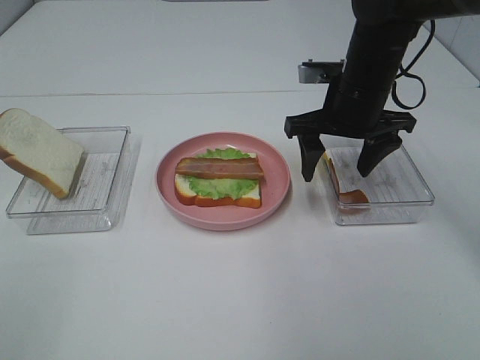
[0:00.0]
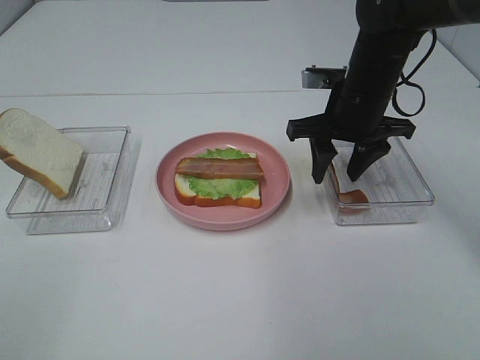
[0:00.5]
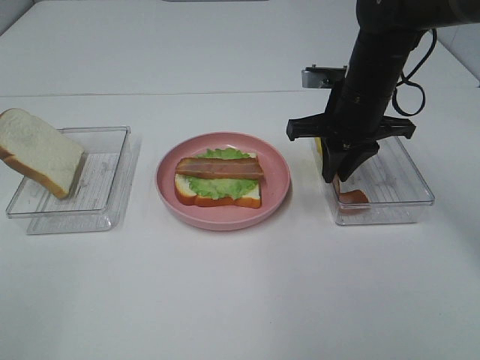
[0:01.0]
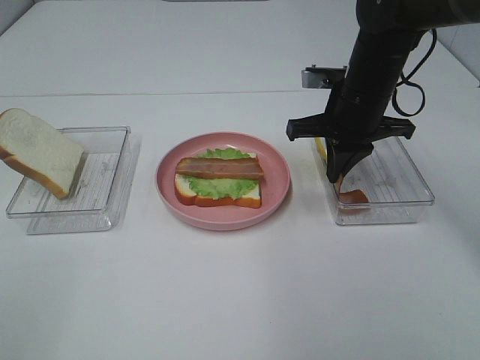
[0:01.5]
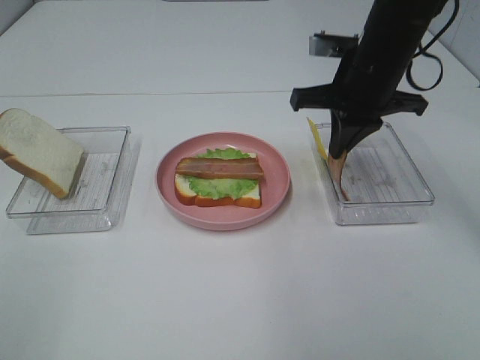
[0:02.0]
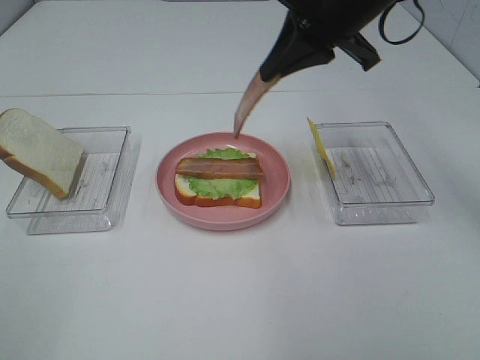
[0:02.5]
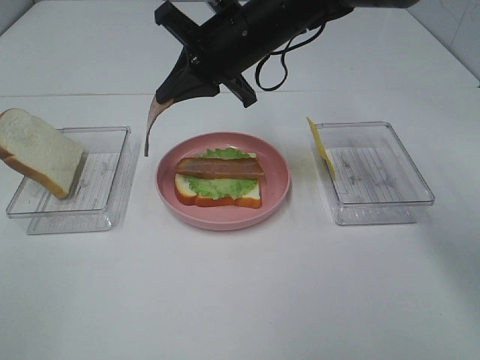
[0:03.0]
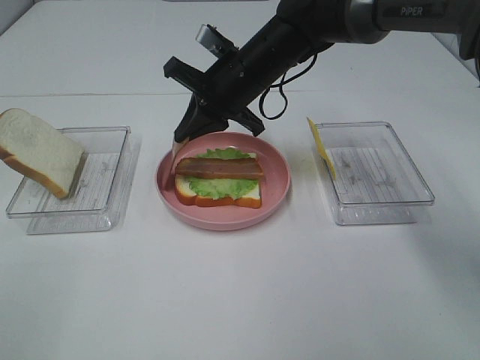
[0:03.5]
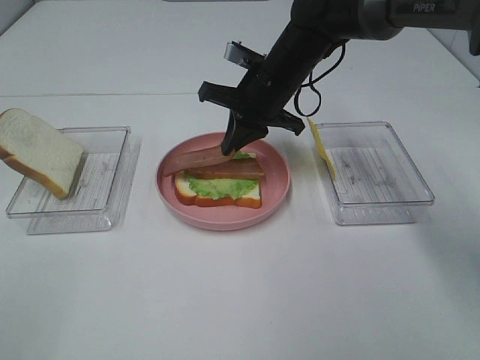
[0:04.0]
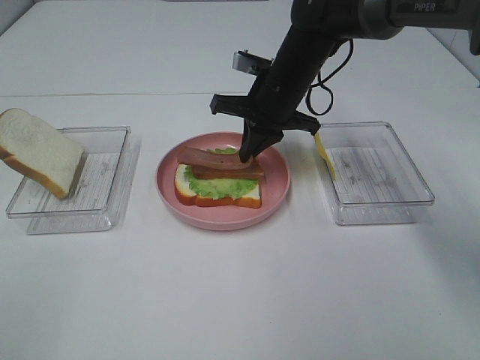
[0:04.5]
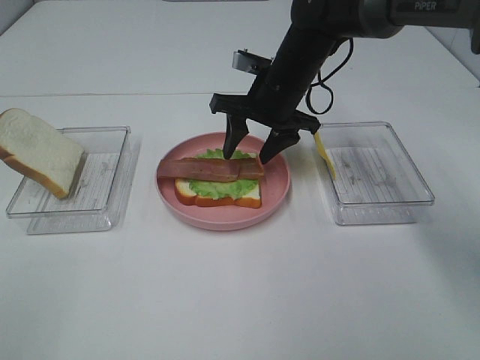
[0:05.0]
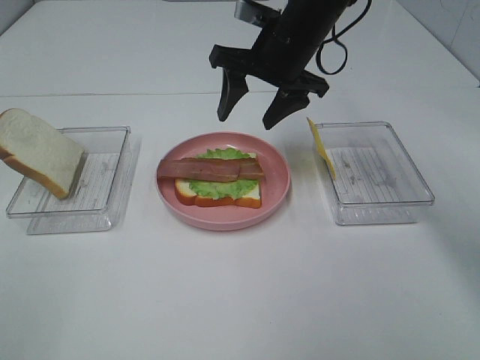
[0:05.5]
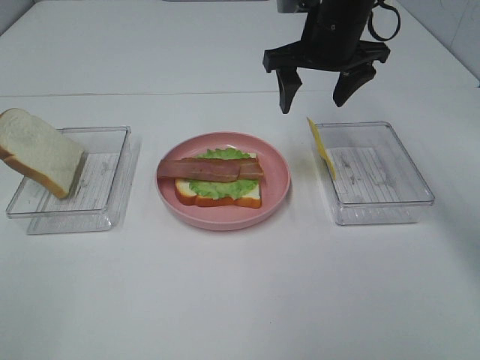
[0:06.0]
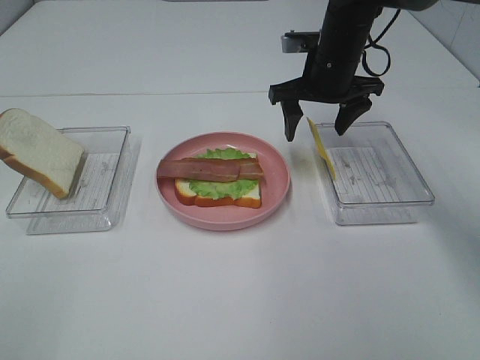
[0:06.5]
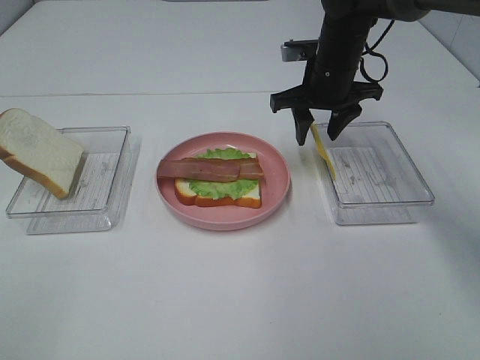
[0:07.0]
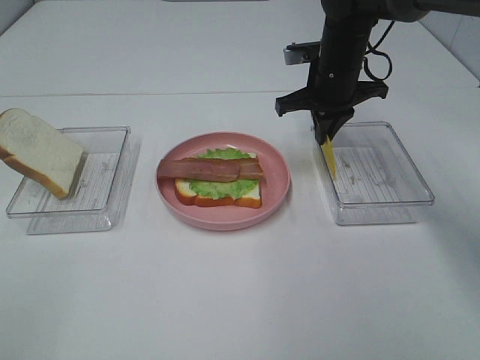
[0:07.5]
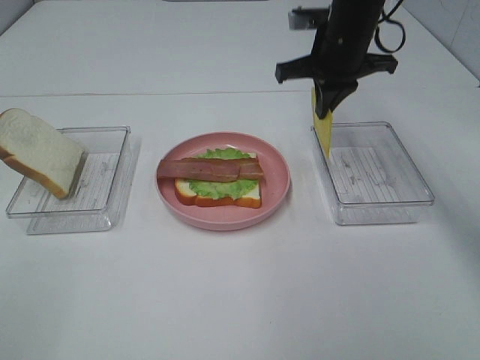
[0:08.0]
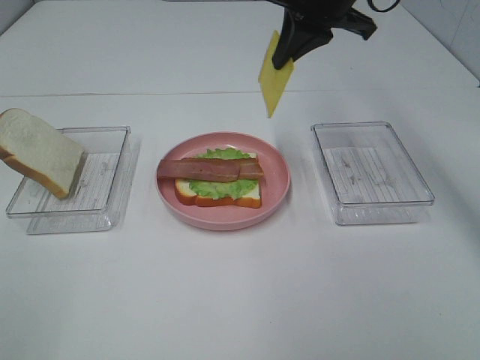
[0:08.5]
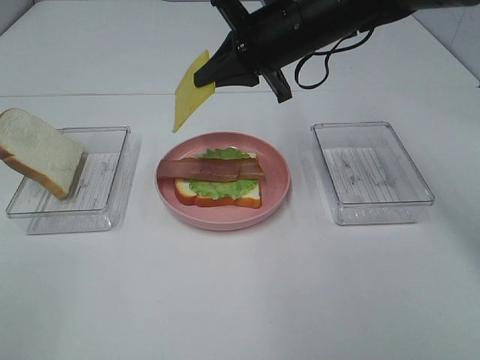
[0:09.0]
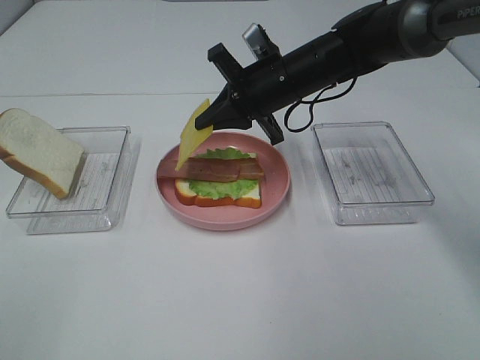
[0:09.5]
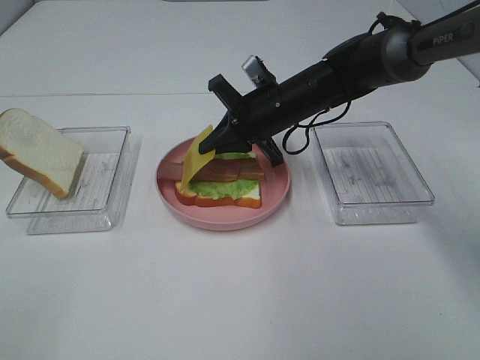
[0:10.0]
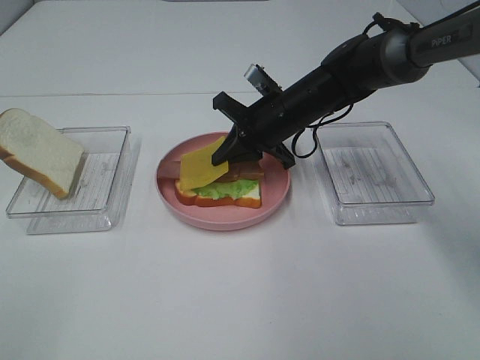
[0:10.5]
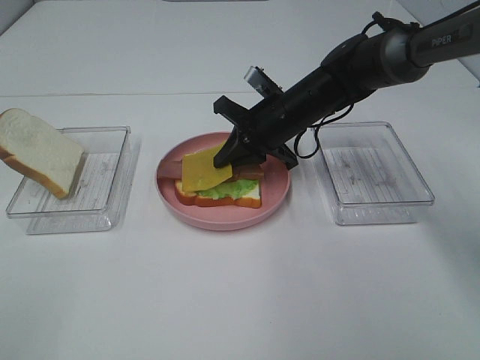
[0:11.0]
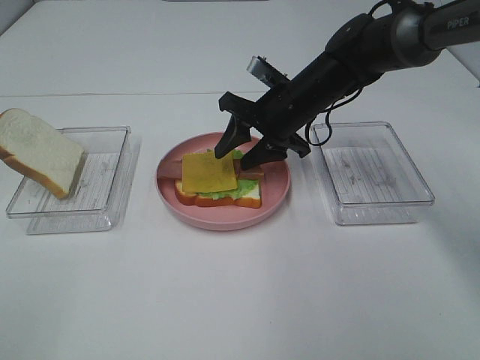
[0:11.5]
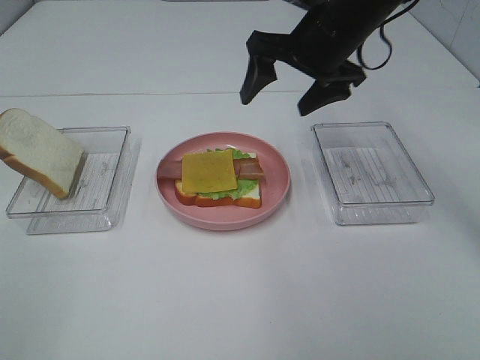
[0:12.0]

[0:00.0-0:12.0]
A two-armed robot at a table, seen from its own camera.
Task of the whole recording: Make sandwiches.
Step, 0:02.0 to 0:05.0: Right hand:place bacon on bacon.
Step, 0:05.5 to 0:07.5: Right hand:grab the cheese slice.
Step, 0:08.0 to 0:11.5: Right hand:place the cheese slice on top of the bacon.
0:00.0 to 0:02.0: The right gripper closes.
0:02.0 to 0:04.0: The right gripper travels to the left, forward and downward by approximately 15 cm.
0:04.0 to 0:06.0: The right gripper is displaced upward and to the right by about 10 cm, and opens.
0:06.0 to 0:08.0: The right gripper closes up.
0:08.0 to 0:10.0: The right gripper travels downward and to the left by approximately 10 cm.
0:10.0 to 0:12.0: The right gripper goes some 15 cm upward, and opens up.

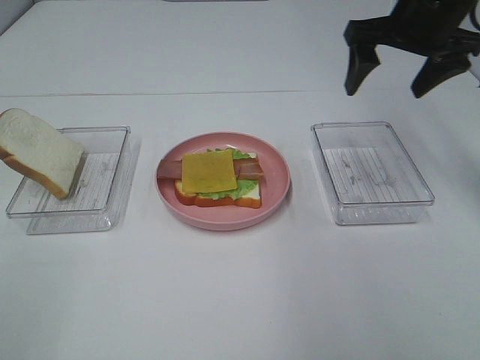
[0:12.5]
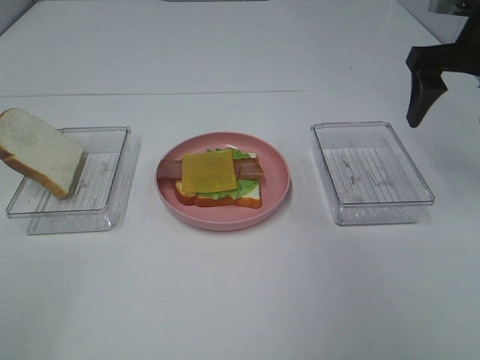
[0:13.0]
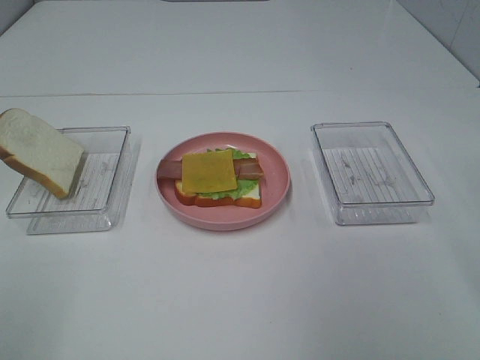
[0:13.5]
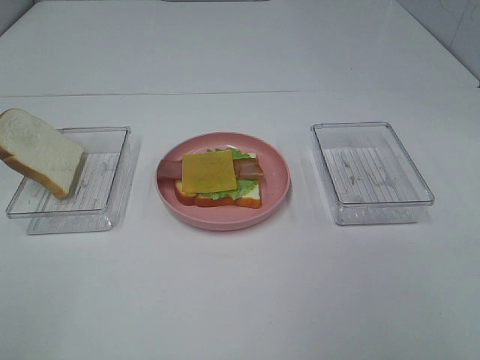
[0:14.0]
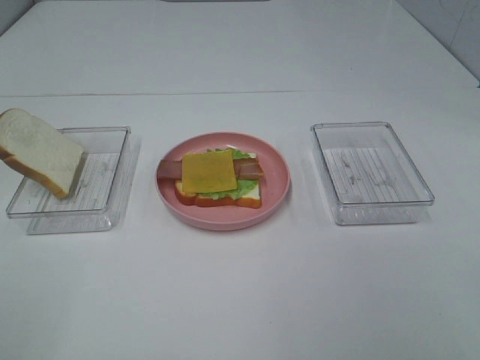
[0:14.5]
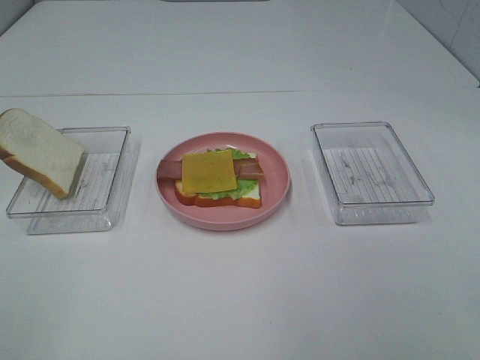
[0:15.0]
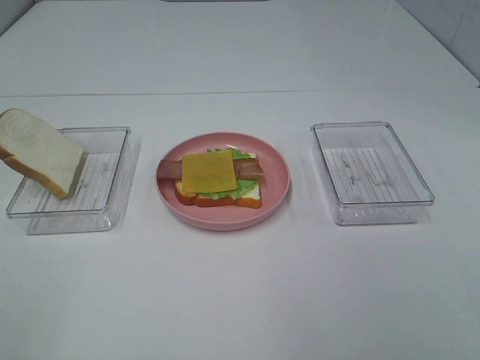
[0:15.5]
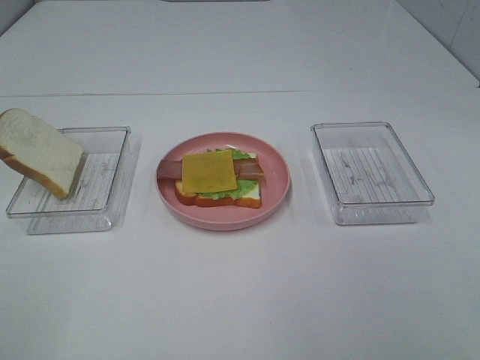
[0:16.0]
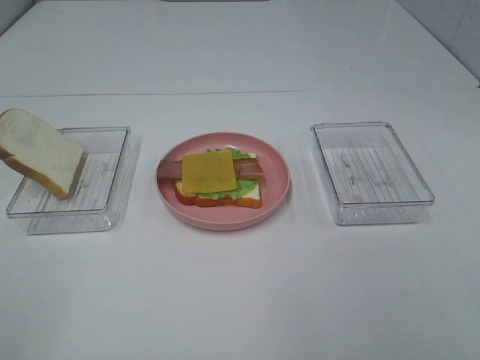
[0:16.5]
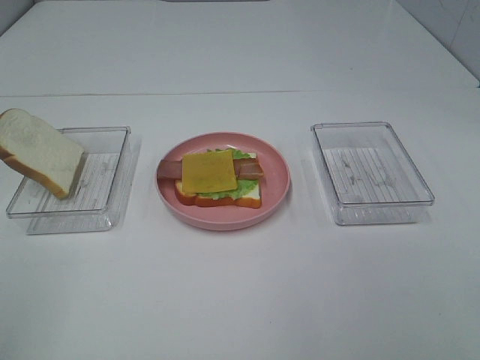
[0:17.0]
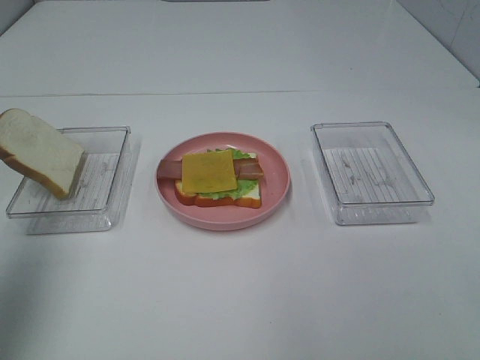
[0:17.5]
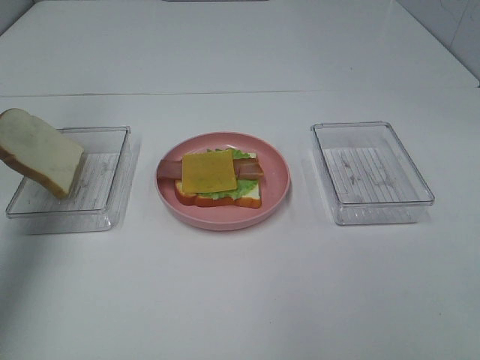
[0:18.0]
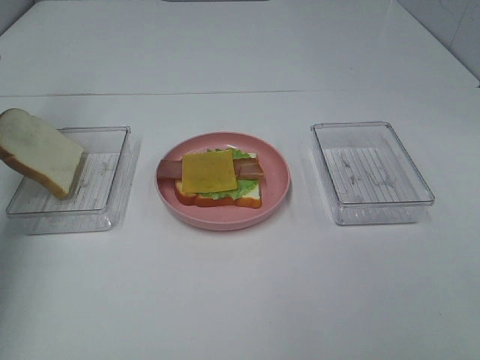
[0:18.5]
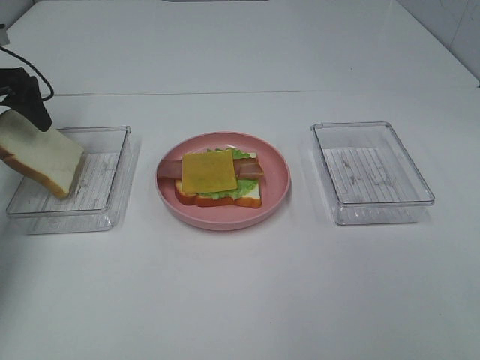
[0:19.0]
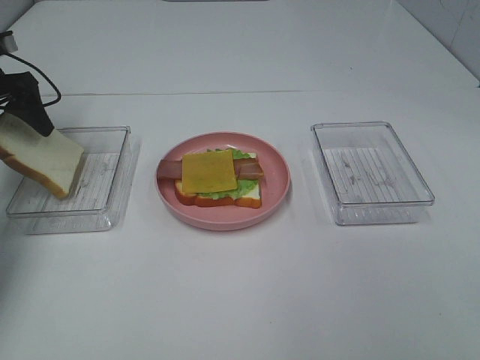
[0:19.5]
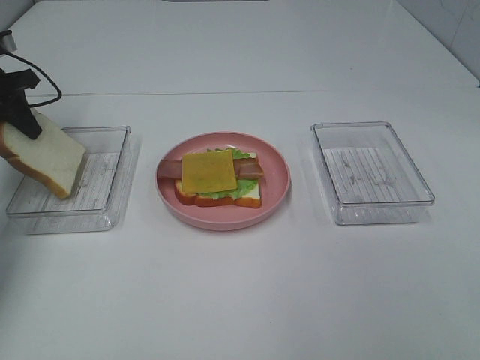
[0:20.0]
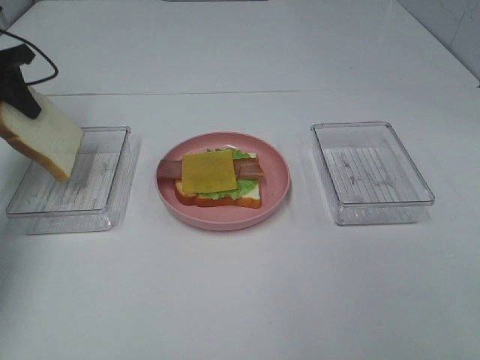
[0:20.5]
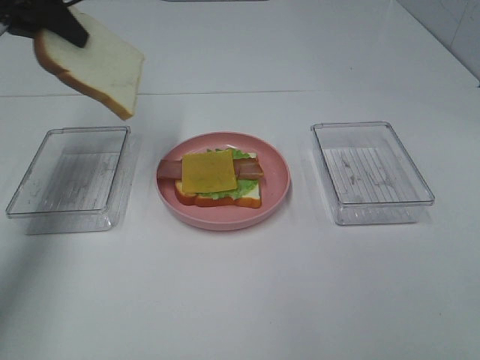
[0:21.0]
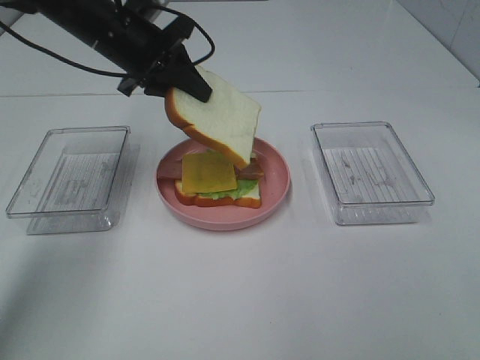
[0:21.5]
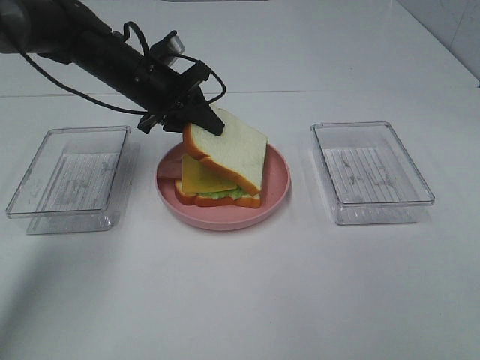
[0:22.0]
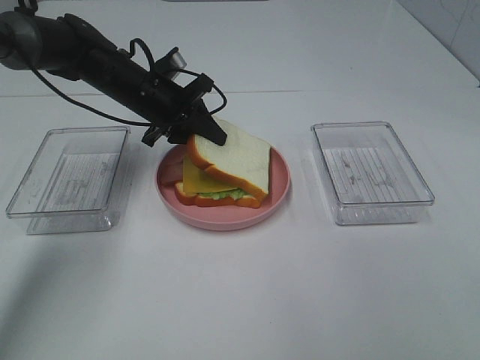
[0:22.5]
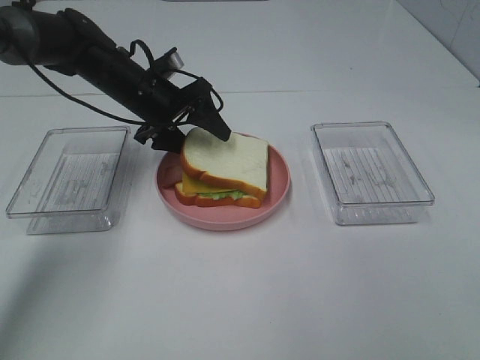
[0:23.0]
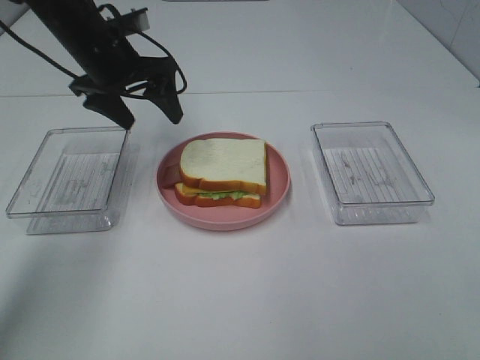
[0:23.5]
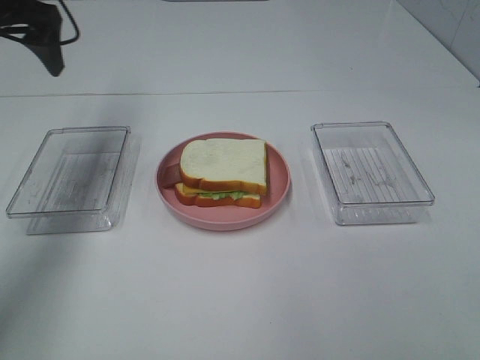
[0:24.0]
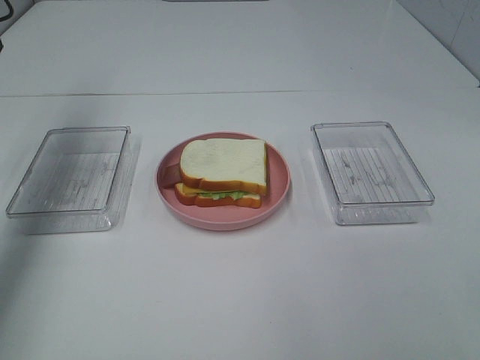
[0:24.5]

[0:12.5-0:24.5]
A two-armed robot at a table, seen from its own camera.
Task of the whole recording: Make sandwiches.
Step, 0:12.5 to 0:20.0: Left hand:grab the bread slice.
Step, 0:20.5 to 0:23.0: Left hand:place the bread slice on the cheese slice.
0:12.5 to 0:14.5: The right gripper heads backward, covering some 40 cm.
0:16.5 to 0:18.5: The left gripper goes roughly 40 cm forward.
0:18.5 to 0:20.5: The left gripper is displaced downward by approximately 5 cm, and closes up.
0:20.5 to 0:22.5: The left gripper travels to the right by some 25 cm.
0:22.5 to 0:24.5: The left gripper moves to the left and upward, roughly 30 cm, and opens its fingers.

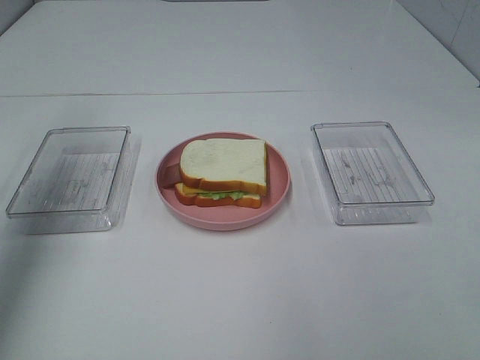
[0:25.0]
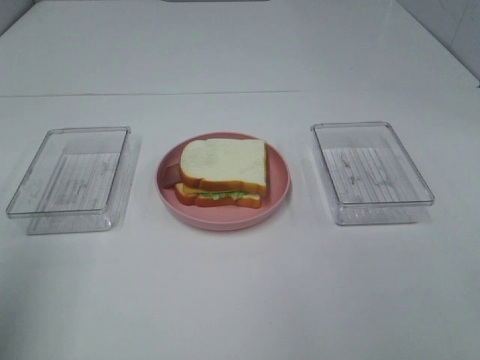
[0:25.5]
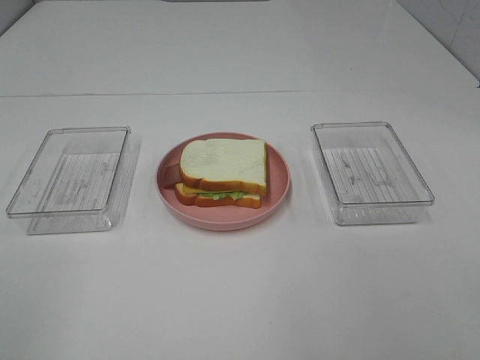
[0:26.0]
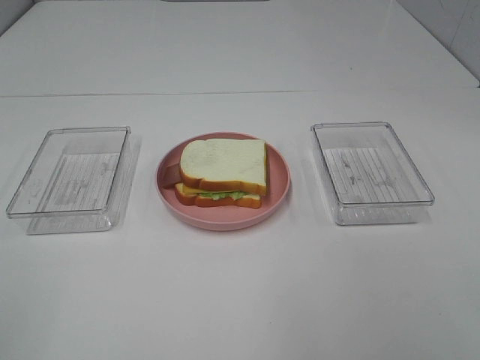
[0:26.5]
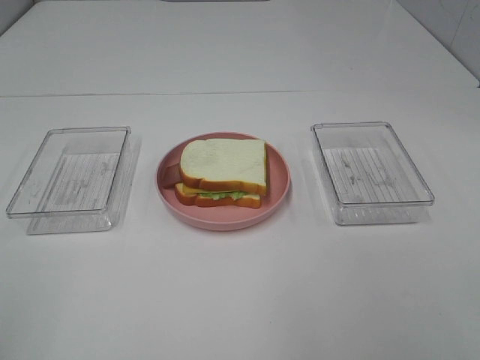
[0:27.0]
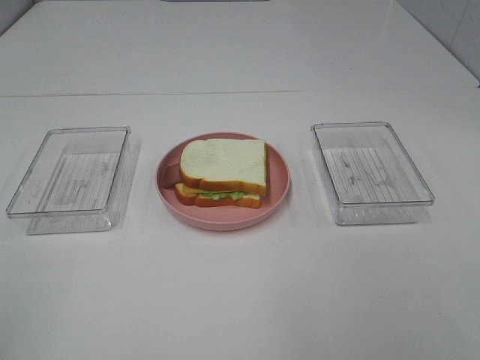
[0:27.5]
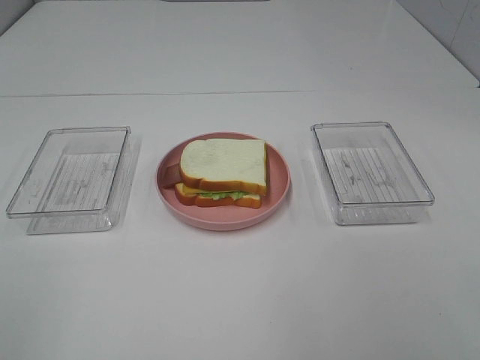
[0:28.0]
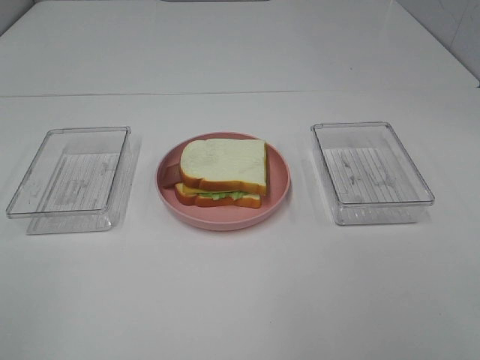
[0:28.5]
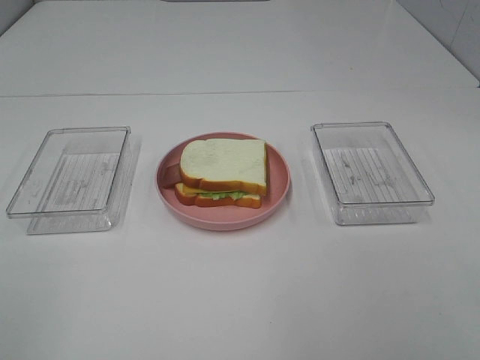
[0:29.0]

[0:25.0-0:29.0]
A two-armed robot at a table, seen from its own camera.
Task of the whole recording: Make sandwiches.
0:25.0 to 0:27.0: The left gripper travels backward by approximately 30 cm.
